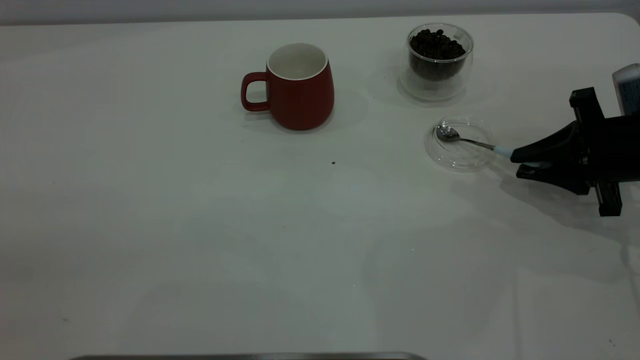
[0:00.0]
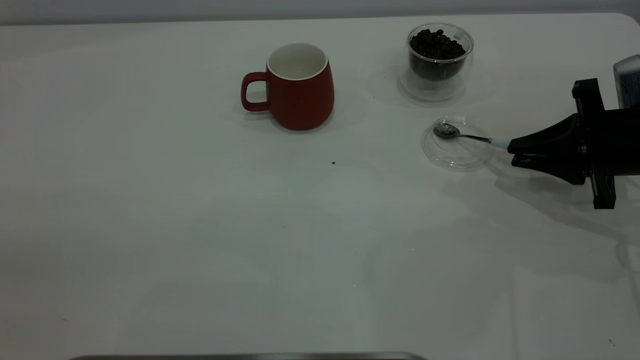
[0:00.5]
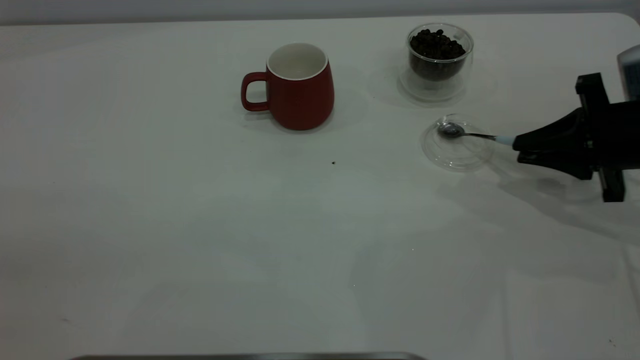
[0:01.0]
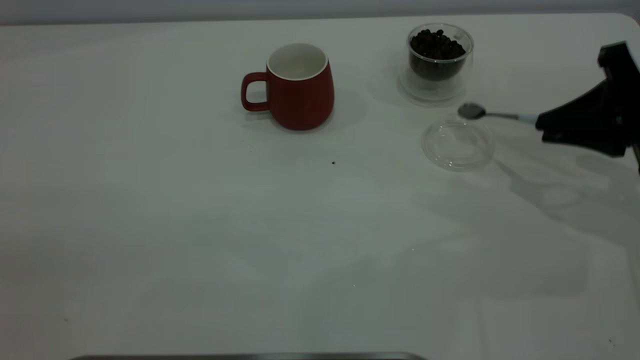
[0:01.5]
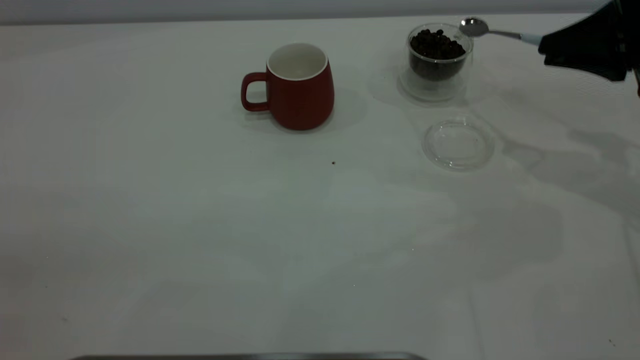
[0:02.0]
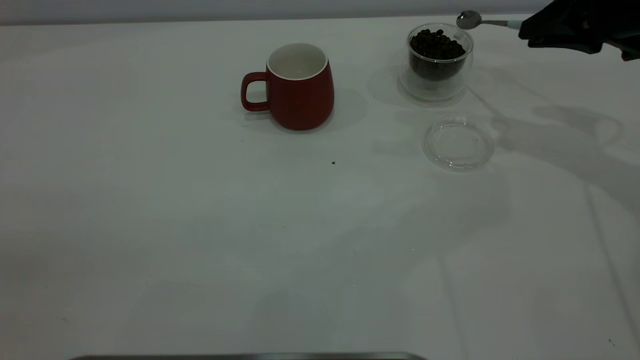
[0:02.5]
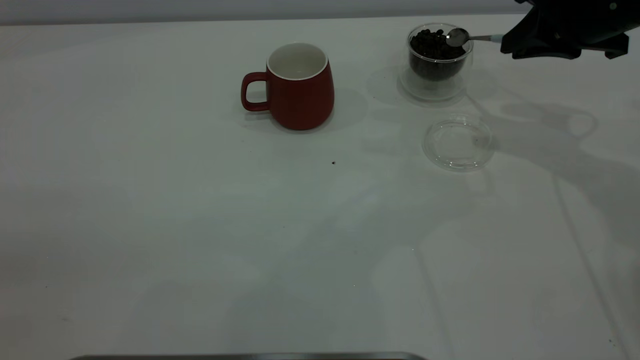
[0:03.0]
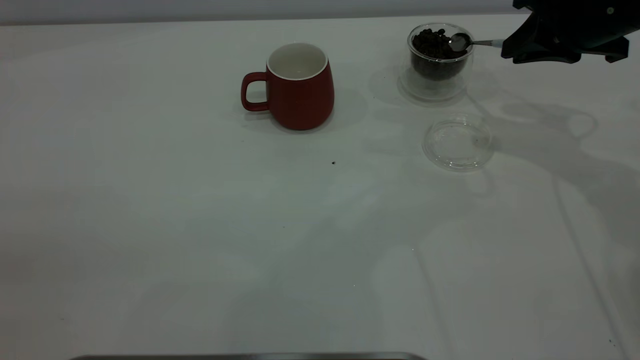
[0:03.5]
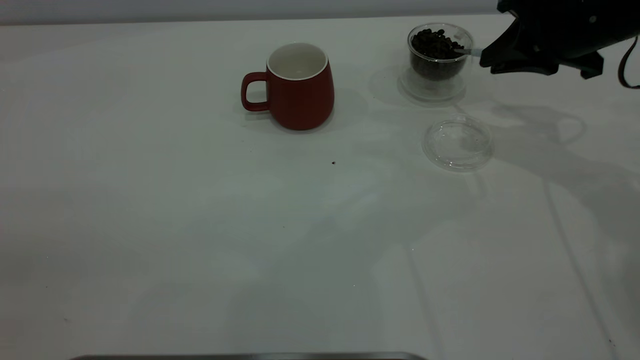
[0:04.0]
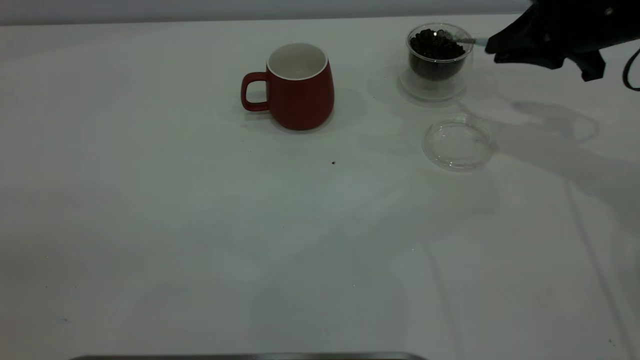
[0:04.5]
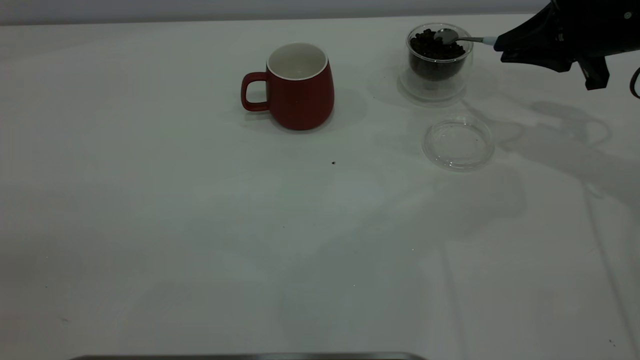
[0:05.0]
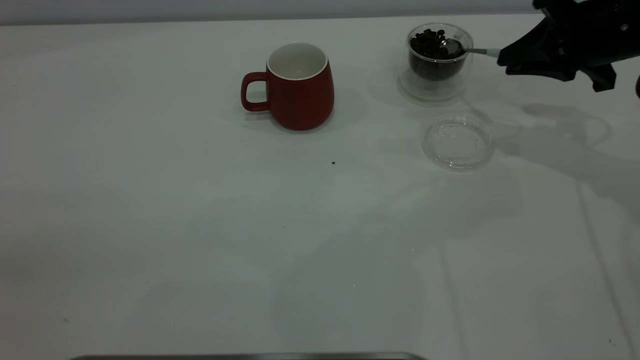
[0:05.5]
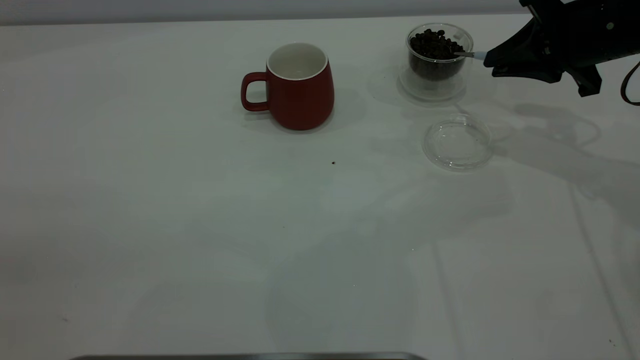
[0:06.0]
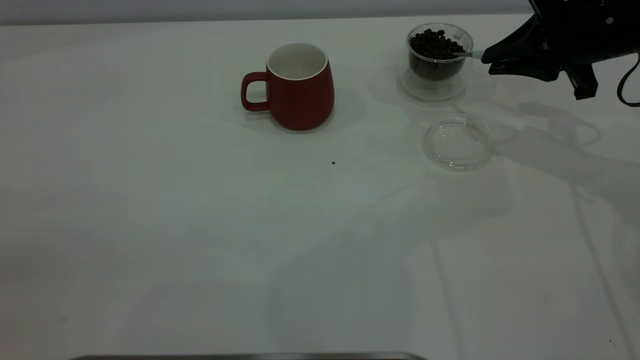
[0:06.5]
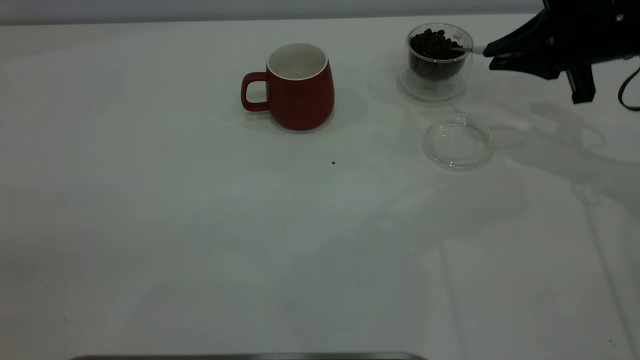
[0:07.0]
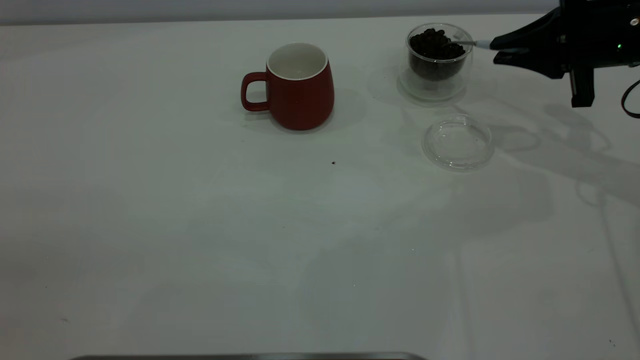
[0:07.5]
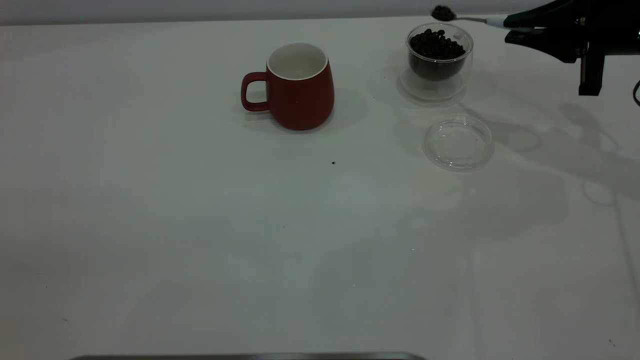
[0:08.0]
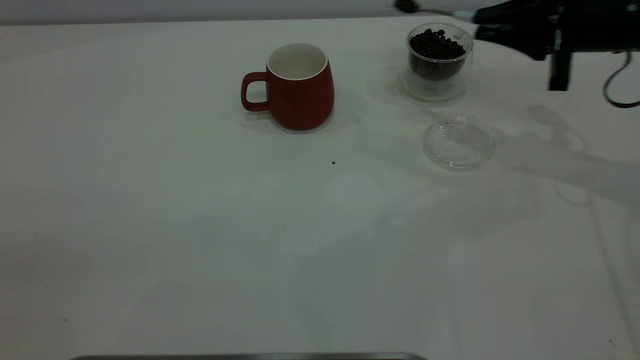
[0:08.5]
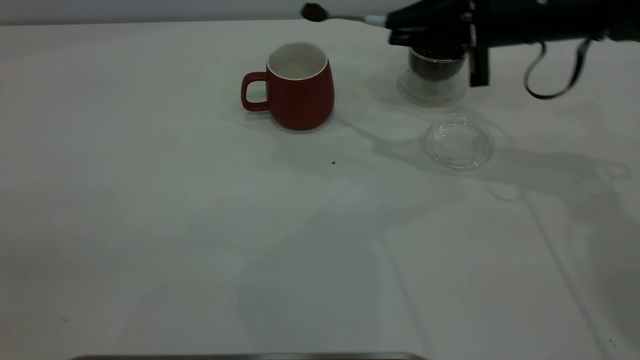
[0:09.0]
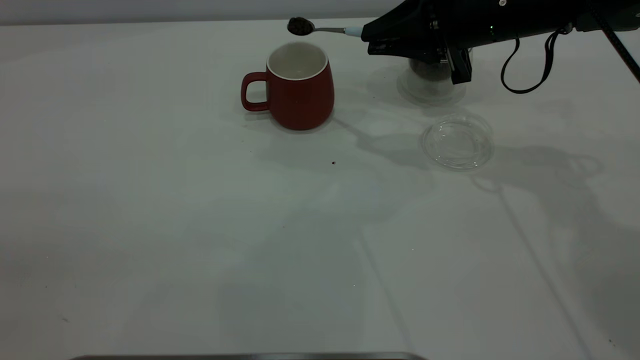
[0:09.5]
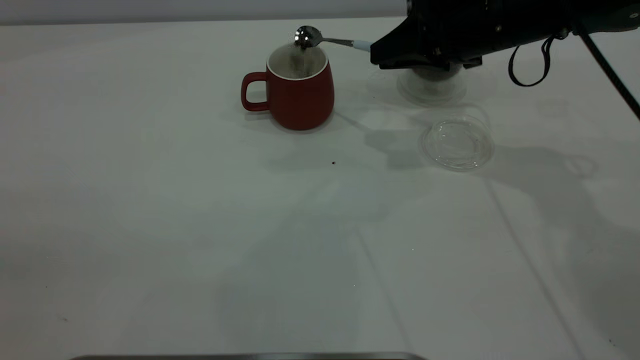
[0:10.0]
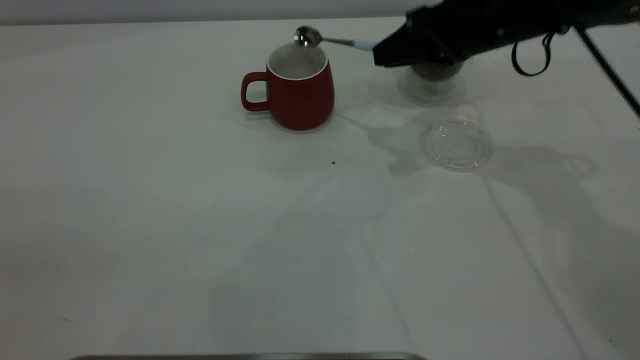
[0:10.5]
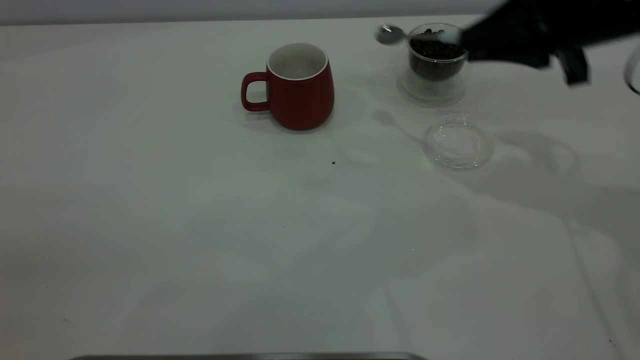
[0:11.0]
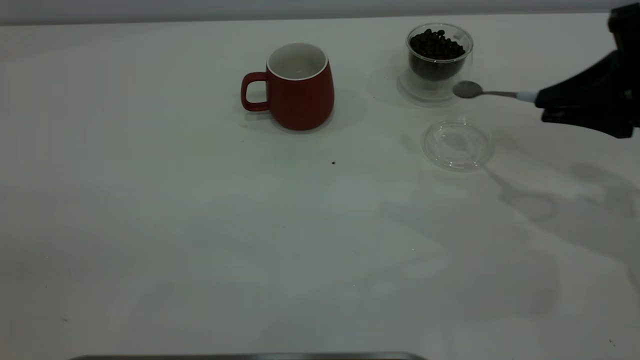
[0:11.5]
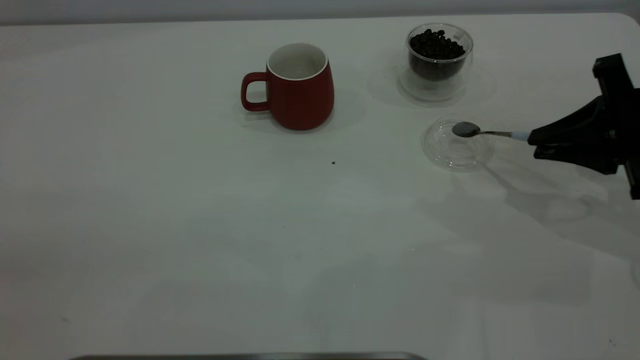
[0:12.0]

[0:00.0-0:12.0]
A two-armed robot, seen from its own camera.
Task of the whole recording: the left gripper place the red cup in the center of the table, the right gripper take the blue spoon from the cup lid and scoop out the coffee beans from the coffee cup and put them into the red cup, the right gripper put the spoon back into the cup lid.
Step, 0:02.0 to 0:10.5: Scoop a spoonful of beans into the cup.
0:00.0 to 0:02.0: The right gripper moves upward, about 10 cm.
0:02.0 to 0:04.0: The right gripper goes roughly 5 cm to the left.
0:04.0 to 0:06.0: The grippers move only a little.
0:08.0 to 0:10.0: The right gripper is displaced to the left by roughly 15 cm.
0:10.0 to 0:12.0: The right gripper goes about 20 cm to the right and backward.

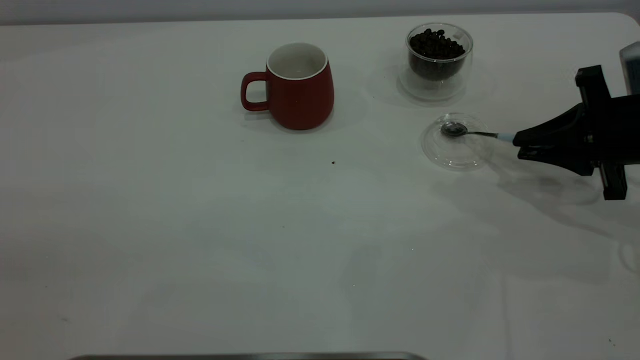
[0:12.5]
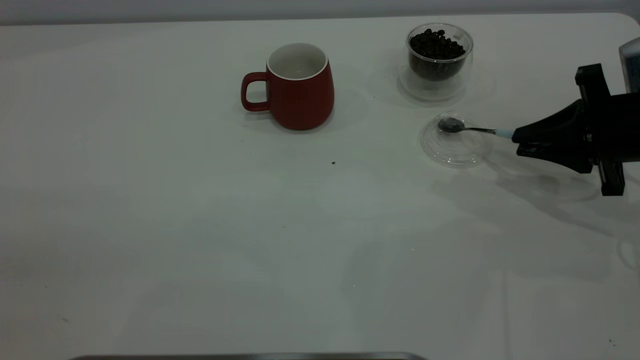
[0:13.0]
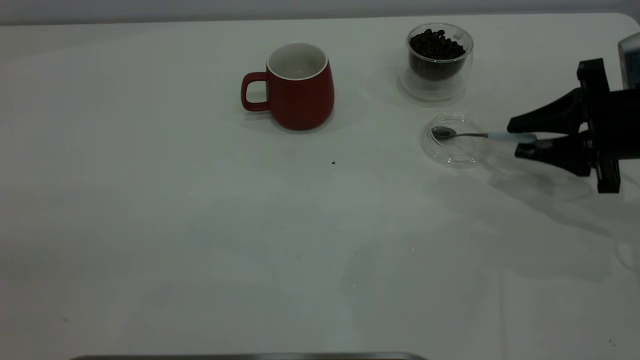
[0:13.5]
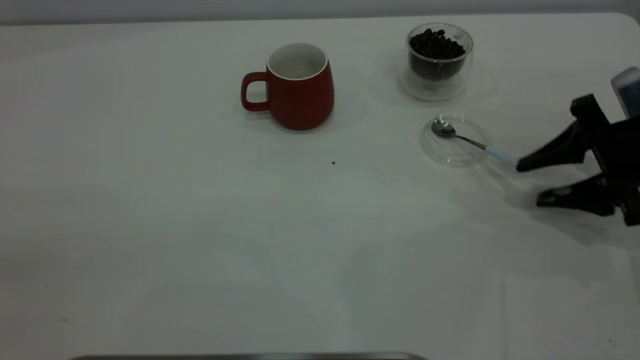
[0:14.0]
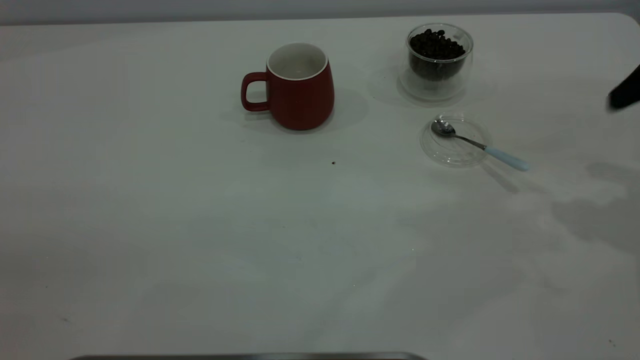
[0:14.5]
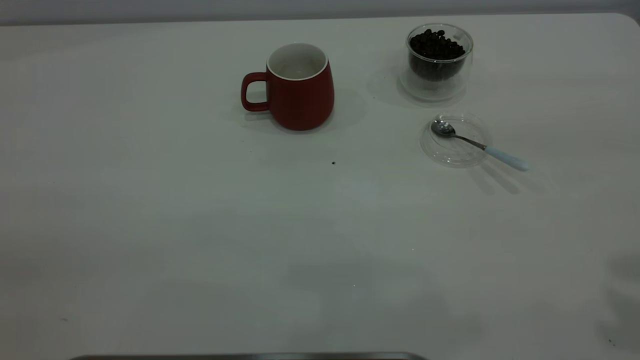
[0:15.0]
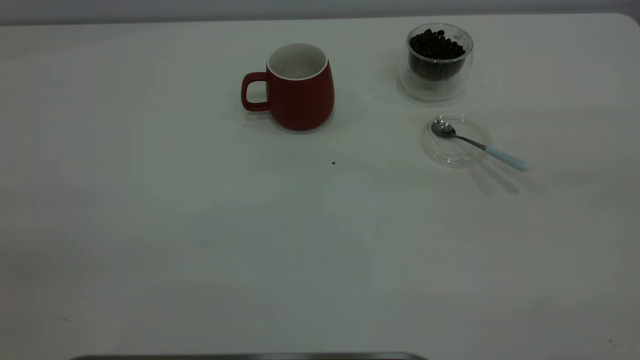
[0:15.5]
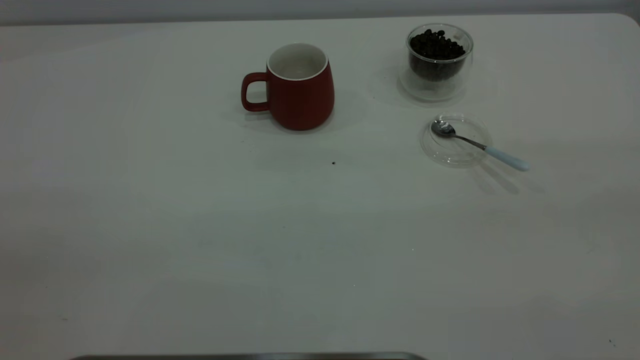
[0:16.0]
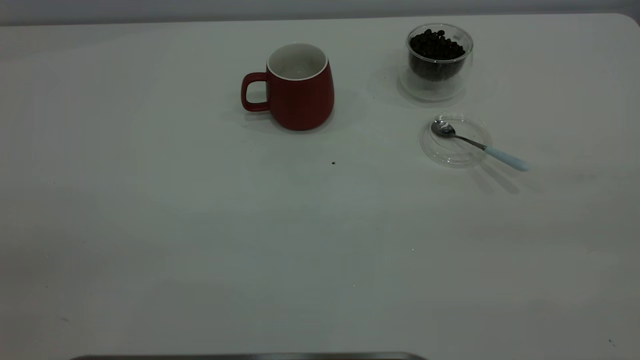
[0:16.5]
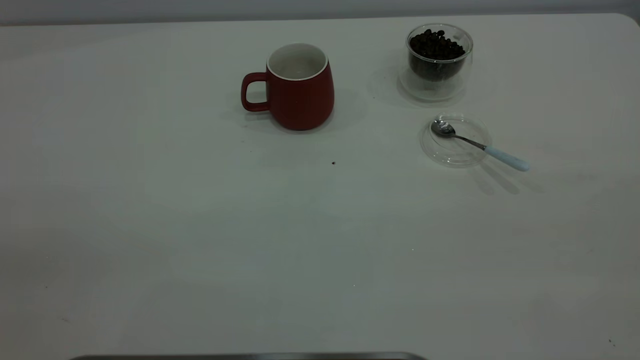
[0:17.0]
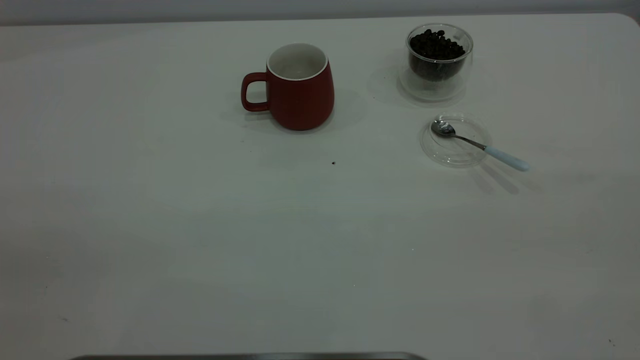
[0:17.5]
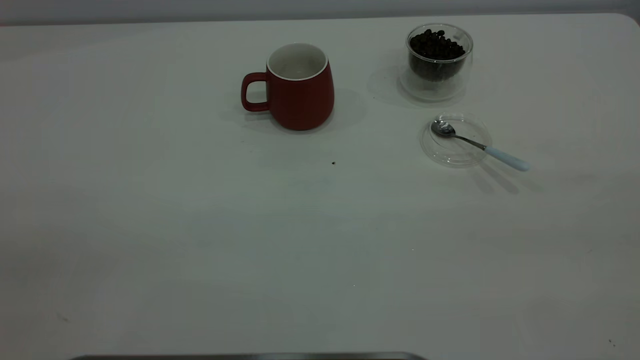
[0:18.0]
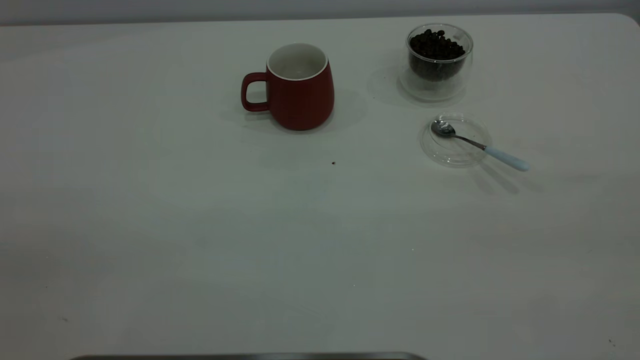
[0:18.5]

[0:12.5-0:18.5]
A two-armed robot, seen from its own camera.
Task of the whole recording: the left gripper place the red cup in the center of the table, the right gripper take the blue spoon from the cup lid and scoop out the coffee beans from the coffee cup and put them into the red cup, the right gripper put the spoon back into the cup lid.
0:12.5 to 0:14.5: The right gripper is displaced upward by about 15 cm, and opens up.
